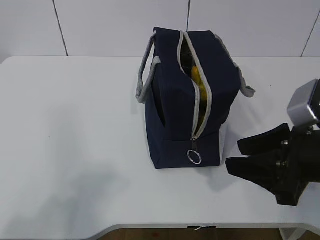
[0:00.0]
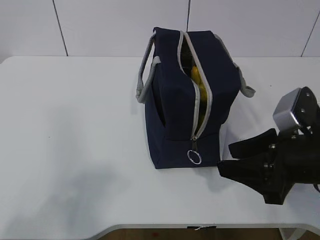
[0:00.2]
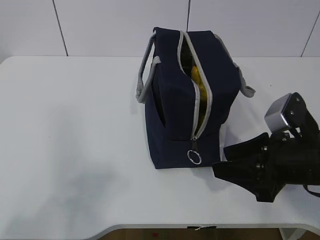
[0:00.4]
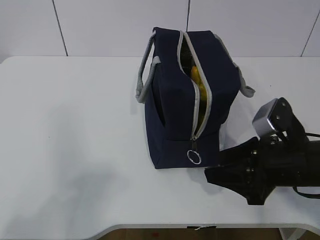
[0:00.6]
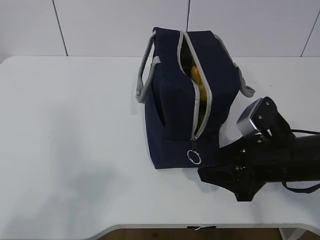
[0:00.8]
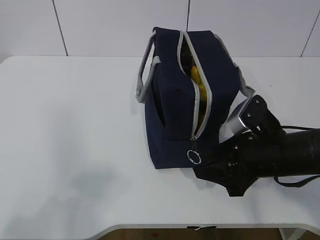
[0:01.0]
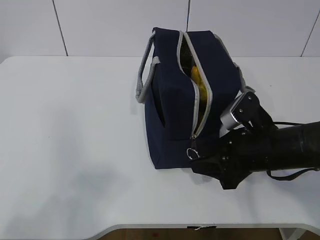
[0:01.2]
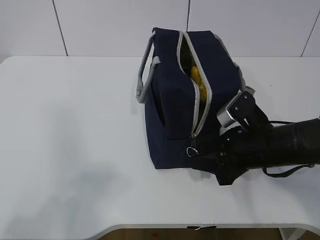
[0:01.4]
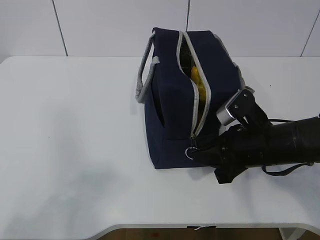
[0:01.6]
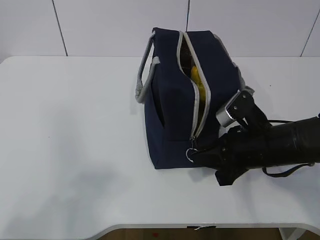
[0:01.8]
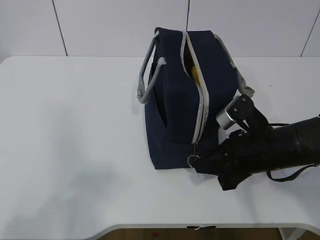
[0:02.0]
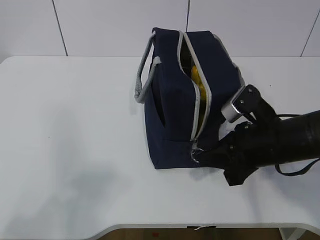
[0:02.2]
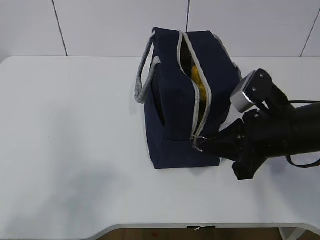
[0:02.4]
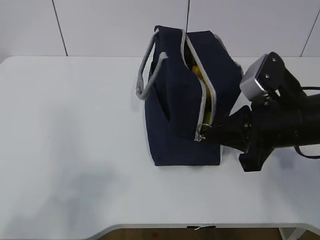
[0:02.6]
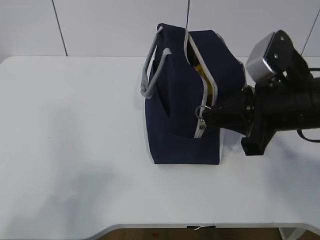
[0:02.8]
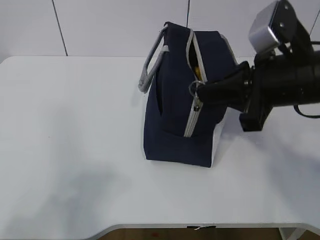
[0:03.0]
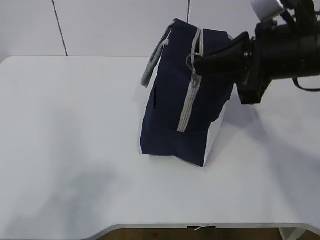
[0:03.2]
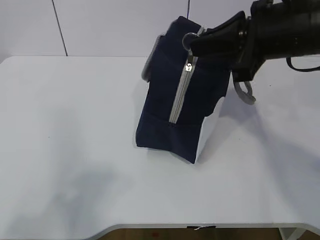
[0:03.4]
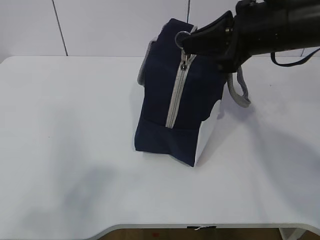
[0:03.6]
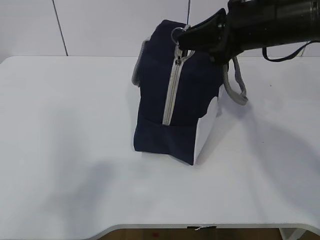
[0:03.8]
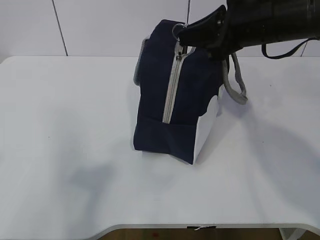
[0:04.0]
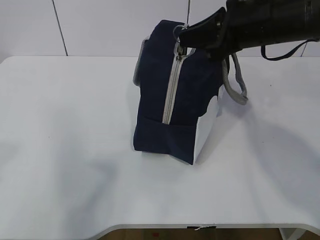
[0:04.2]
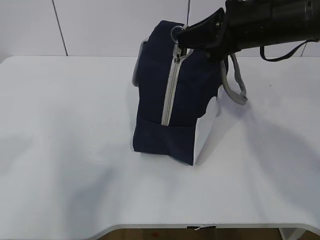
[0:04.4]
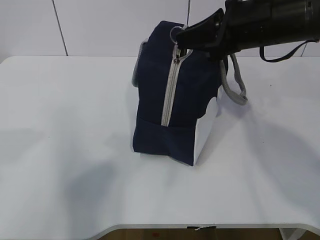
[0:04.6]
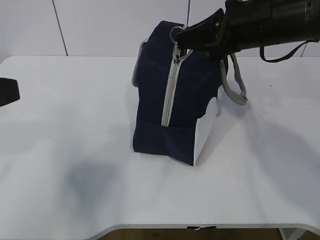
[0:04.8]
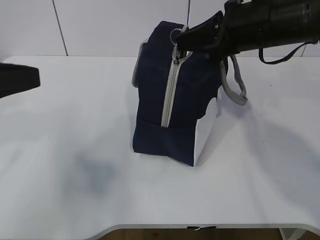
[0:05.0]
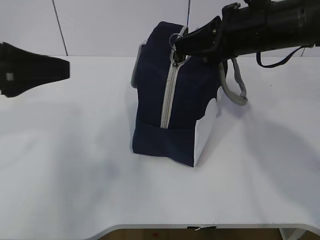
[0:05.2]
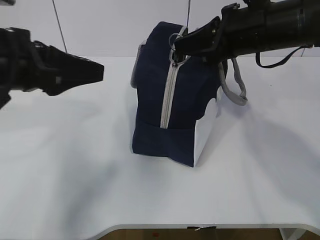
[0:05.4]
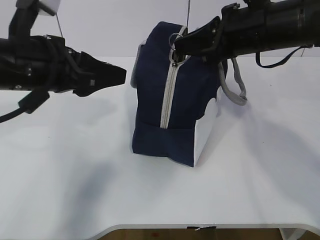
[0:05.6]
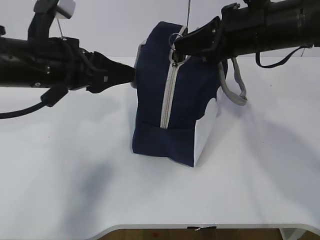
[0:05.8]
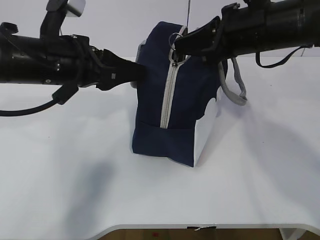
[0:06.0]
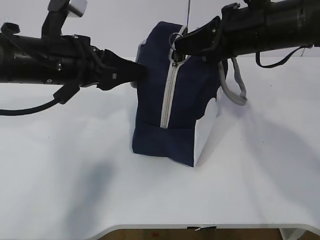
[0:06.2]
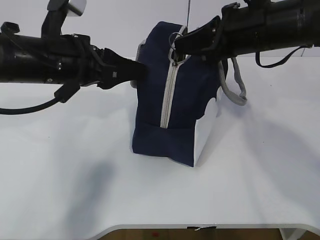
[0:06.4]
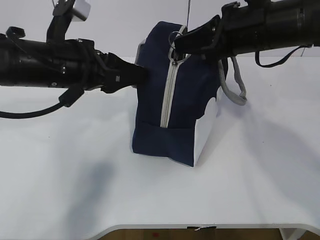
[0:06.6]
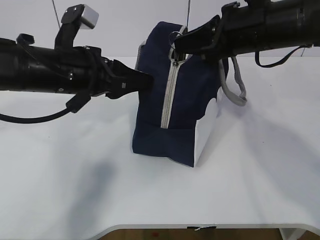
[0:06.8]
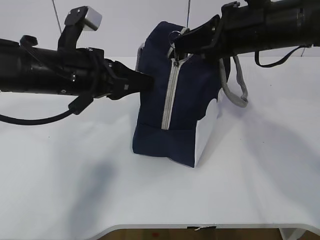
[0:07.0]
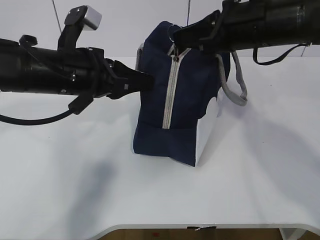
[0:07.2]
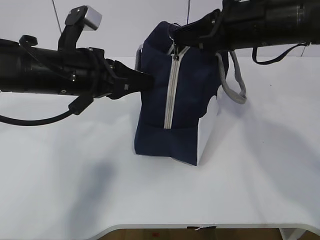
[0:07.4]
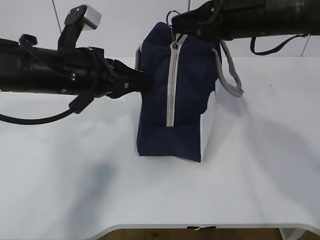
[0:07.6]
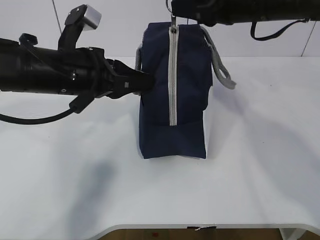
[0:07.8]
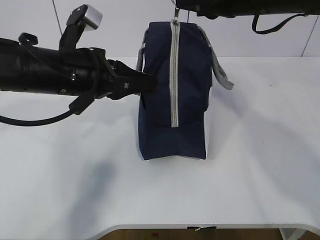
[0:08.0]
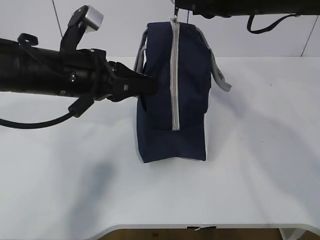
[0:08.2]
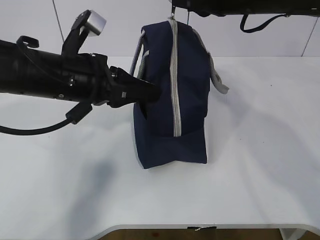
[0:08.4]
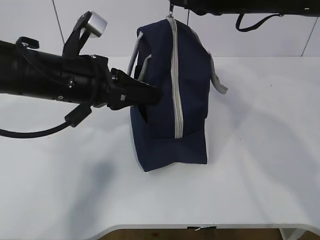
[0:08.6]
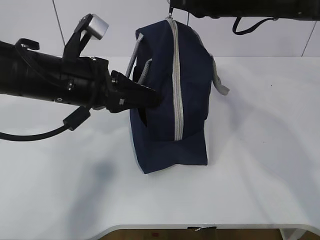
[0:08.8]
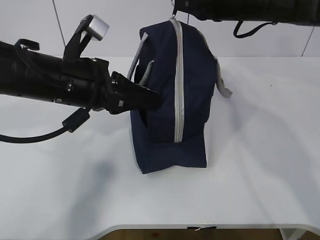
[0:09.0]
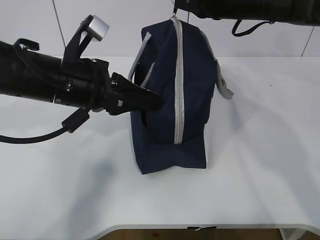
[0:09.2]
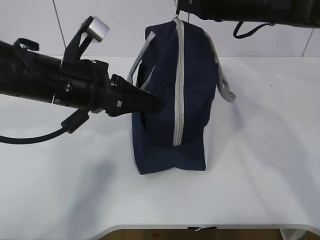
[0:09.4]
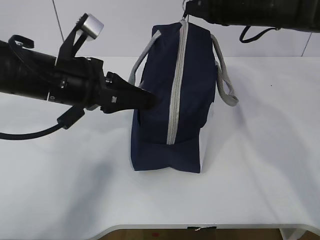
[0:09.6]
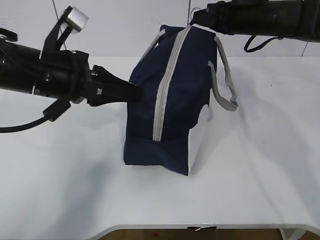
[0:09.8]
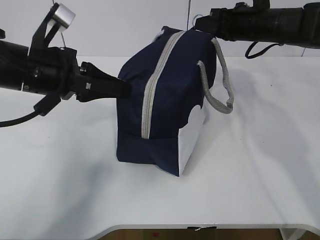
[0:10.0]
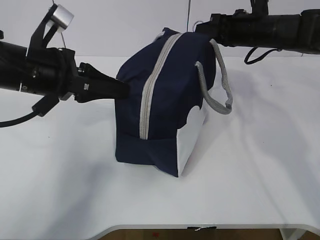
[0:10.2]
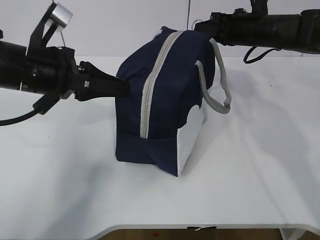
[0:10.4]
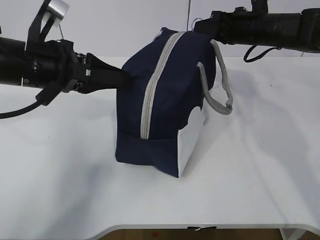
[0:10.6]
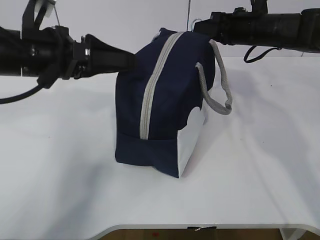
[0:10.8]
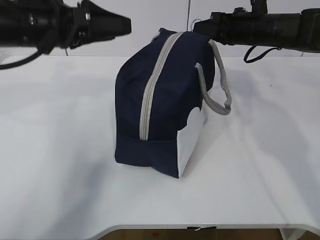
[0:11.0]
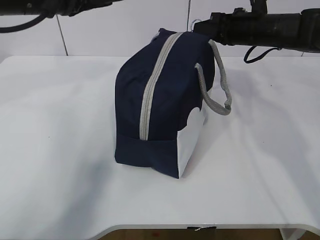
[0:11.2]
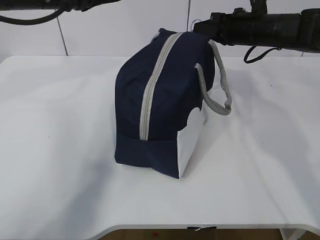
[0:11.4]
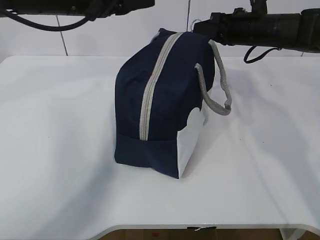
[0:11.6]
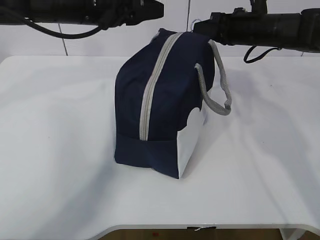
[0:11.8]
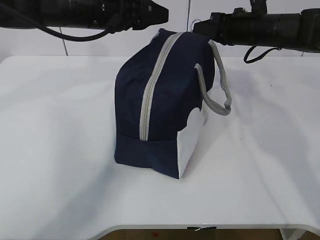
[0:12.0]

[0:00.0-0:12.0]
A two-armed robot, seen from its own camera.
Step, 0:00.6 to 0:04.4: Pull the zipper with your right hand.
Step, 0:04.6 to 0:05.2: Grab the lunch bag with your left hand.
0:00.0 to 0:01.6: The right gripper shifts roughly 10 cm forward and downward, and closes up.
0:01.6 to 0:03.0: The right gripper goes some 15 cm upward.
0:03.0 to 0:04.4: The two grippers go some 10 cm forward.
0:04.4 to 0:06.0: The left gripper travels forward and to the right by some 25 cm.
0:06.0 to 0:07.6: The left gripper closes its fingers.
0:07.6 to 0:09.0: The right gripper travels forward by about 5 cm.
0:09.0 to 0:10.4: The right gripper moves downward, to the right and forward, roughly 10 cm.
0:10.4 to 0:12.0: The left gripper is displaced forward and to the right by roughly 10 cm, and opens up.

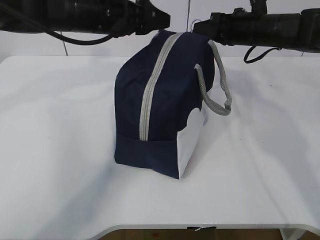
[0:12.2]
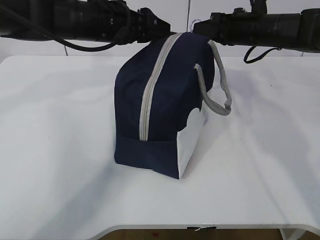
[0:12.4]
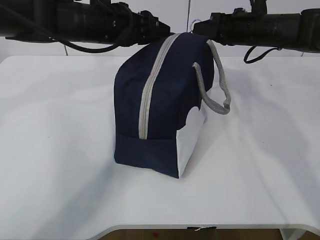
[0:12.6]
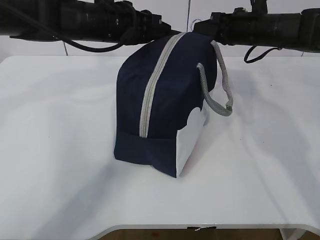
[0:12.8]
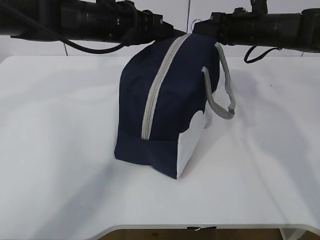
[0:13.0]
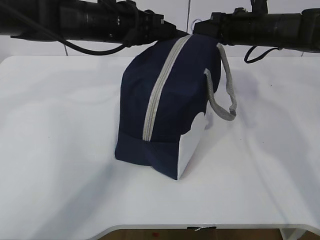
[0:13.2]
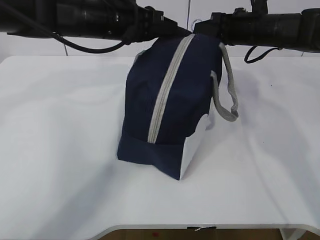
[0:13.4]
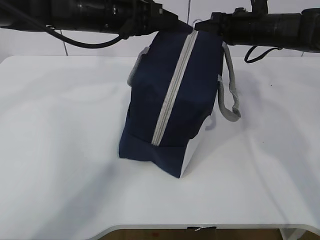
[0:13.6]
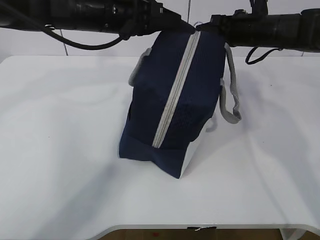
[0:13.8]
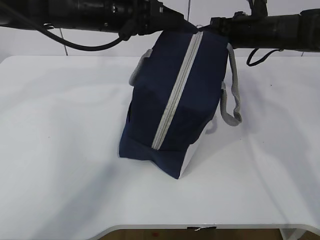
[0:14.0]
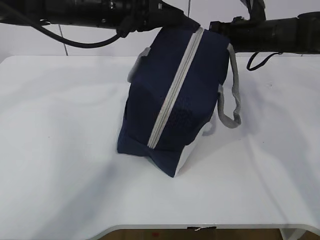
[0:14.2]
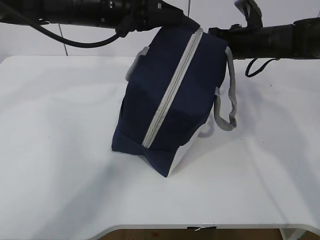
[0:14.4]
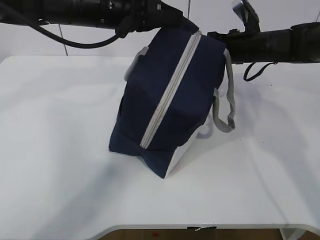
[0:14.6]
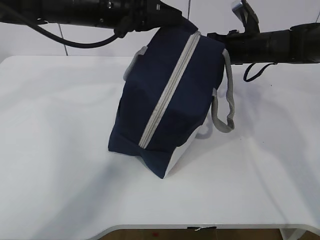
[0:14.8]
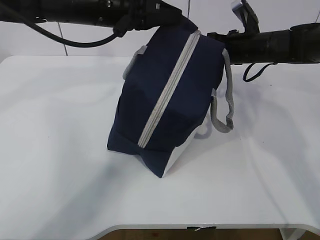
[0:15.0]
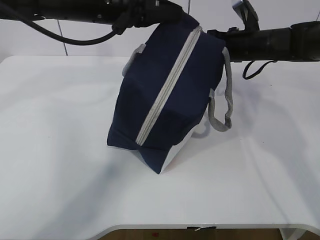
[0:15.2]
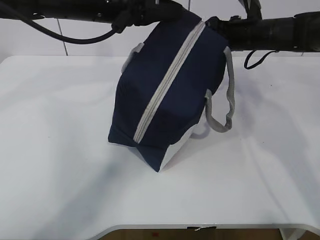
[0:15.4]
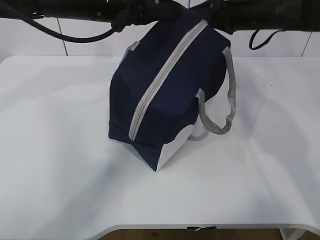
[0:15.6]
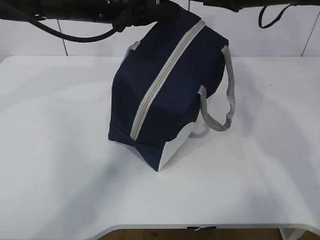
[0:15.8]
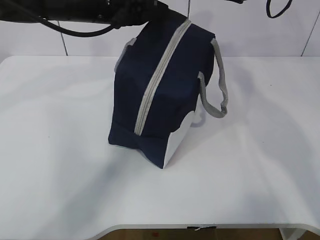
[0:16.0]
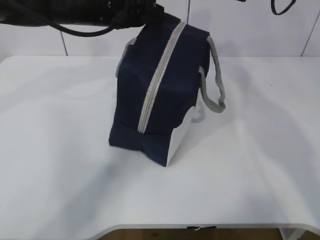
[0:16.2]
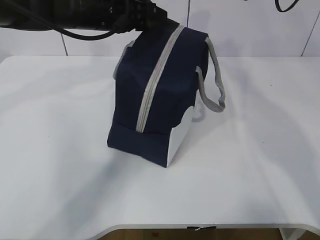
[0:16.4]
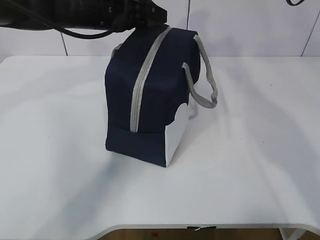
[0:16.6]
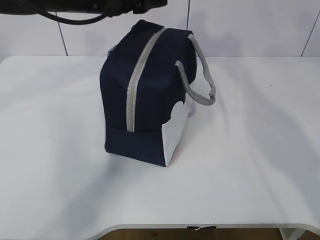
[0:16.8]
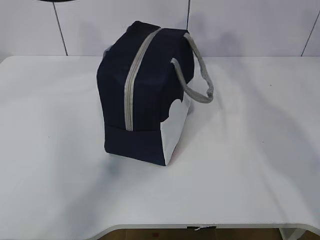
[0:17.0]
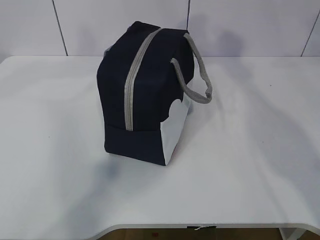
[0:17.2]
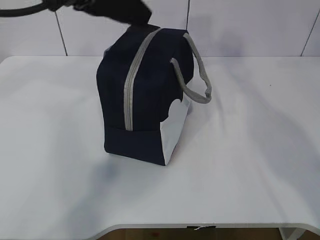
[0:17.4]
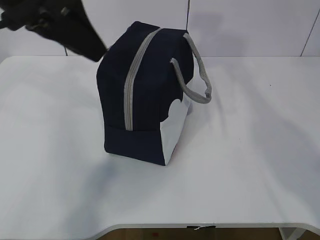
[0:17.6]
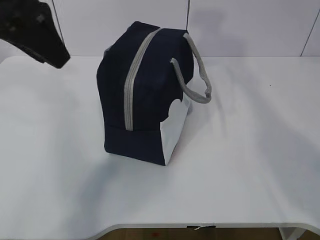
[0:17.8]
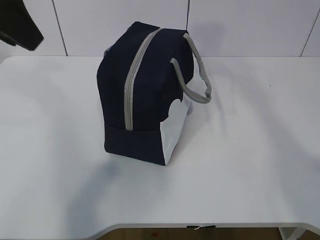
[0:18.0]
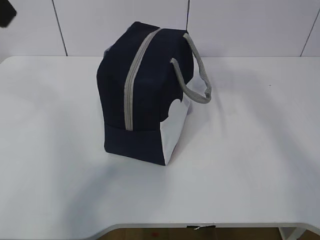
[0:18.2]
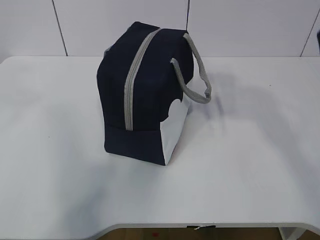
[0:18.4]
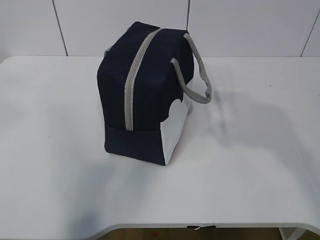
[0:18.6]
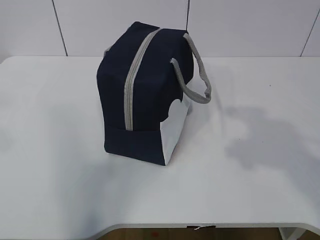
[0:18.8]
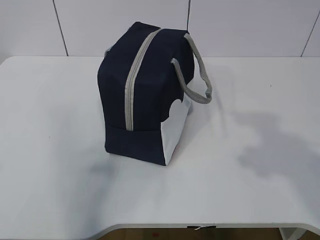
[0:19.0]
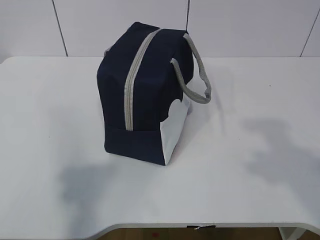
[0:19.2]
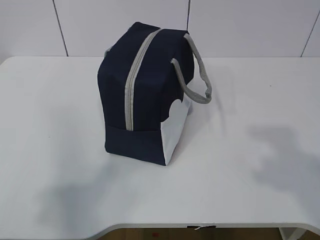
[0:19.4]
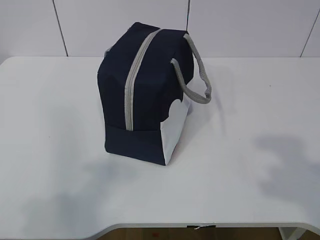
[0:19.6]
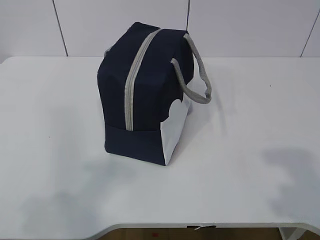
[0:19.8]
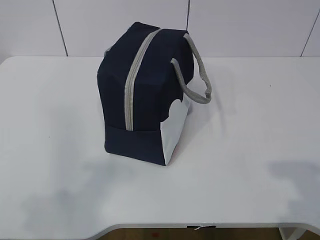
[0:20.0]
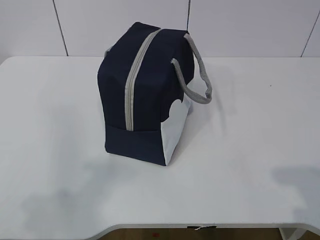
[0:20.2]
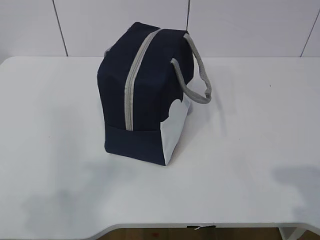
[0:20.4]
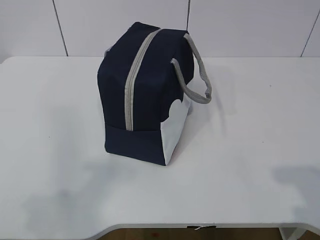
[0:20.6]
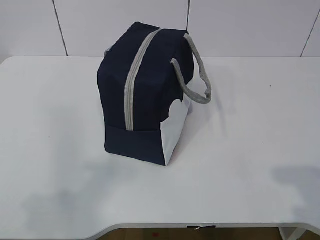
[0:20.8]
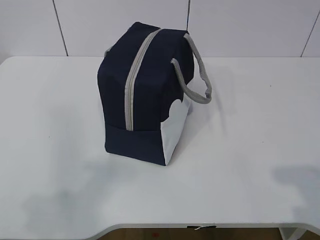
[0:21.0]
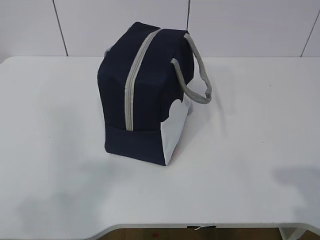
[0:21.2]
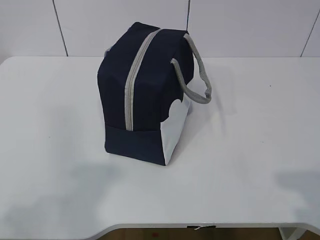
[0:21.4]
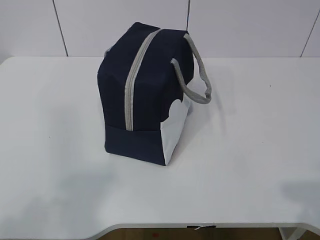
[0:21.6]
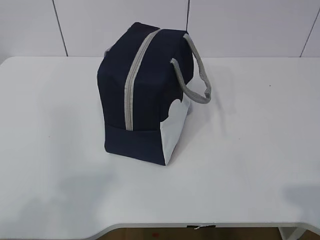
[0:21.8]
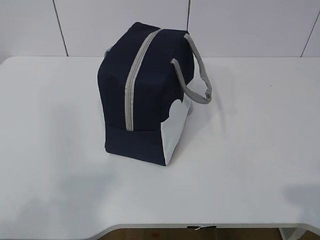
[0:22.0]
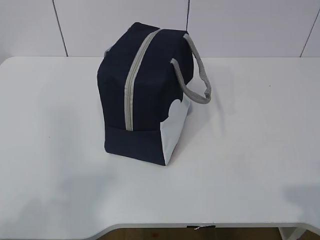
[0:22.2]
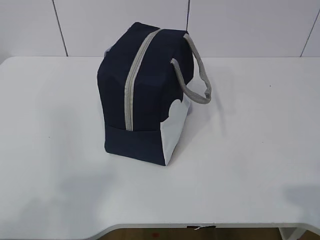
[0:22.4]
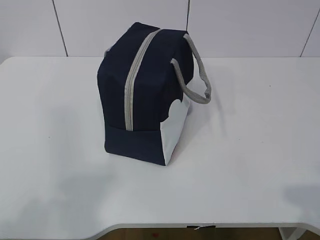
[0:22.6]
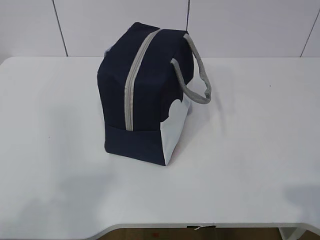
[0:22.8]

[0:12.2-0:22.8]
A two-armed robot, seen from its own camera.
0:12.2 to 0:13.8: The left gripper closes its fingers.
0:13.8 to 0:15.2: The grippers stay close to where they were, moving slightly.
0:15.2 to 0:16.8: The right gripper moves upward, some 15 cm, and opens; the left gripper opens.
0:16.8 to 0:18.2: The left gripper moves backward, upward and to the left, approximately 25 cm; the right gripper moves backward and upward, roughly 20 cm.
0:18.2 to 0:19.8: The right gripper is displaced backward and downward by approximately 25 cm, while the left gripper goes about 25 cm backward, downward and to the left.
